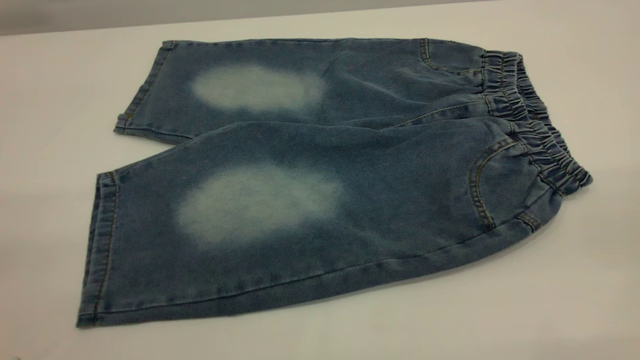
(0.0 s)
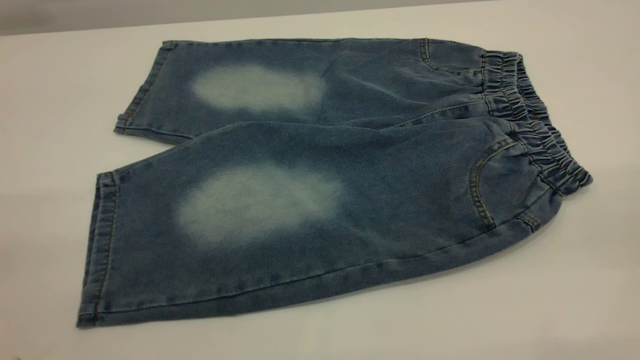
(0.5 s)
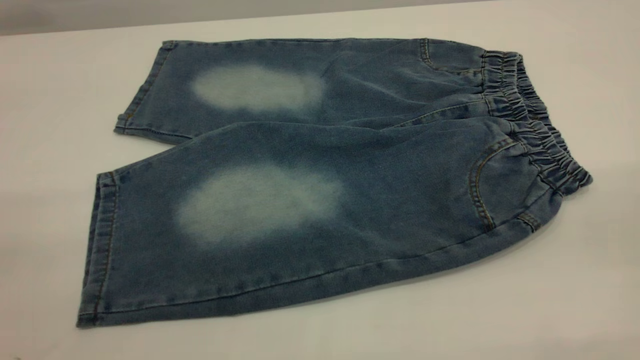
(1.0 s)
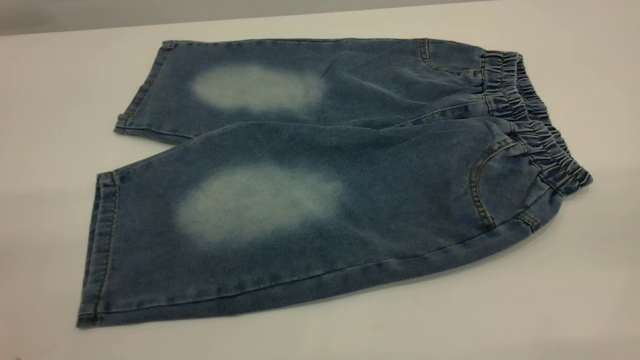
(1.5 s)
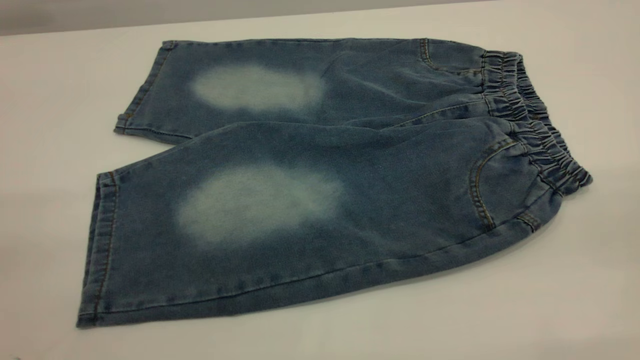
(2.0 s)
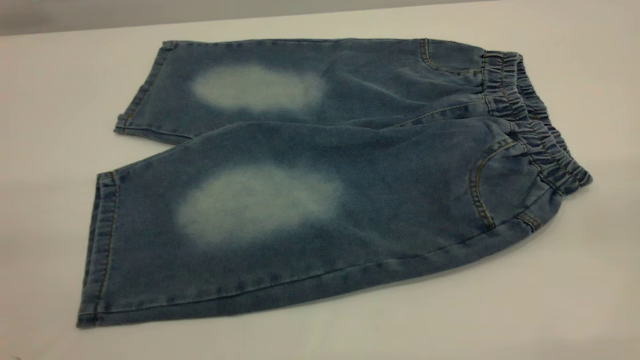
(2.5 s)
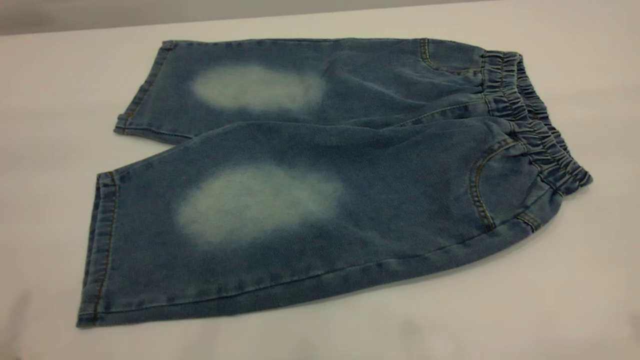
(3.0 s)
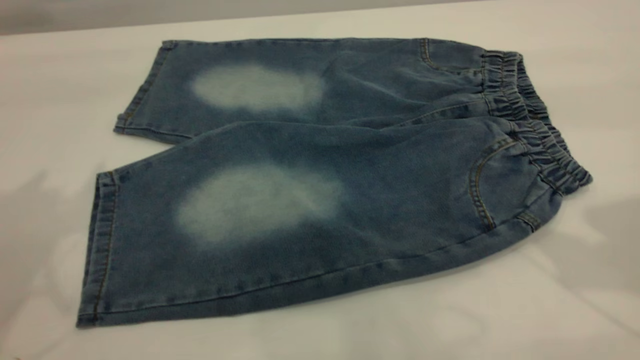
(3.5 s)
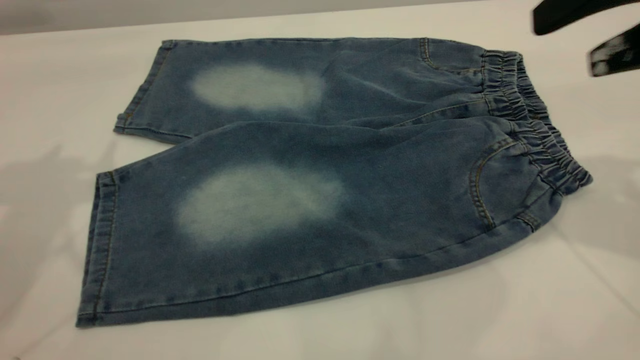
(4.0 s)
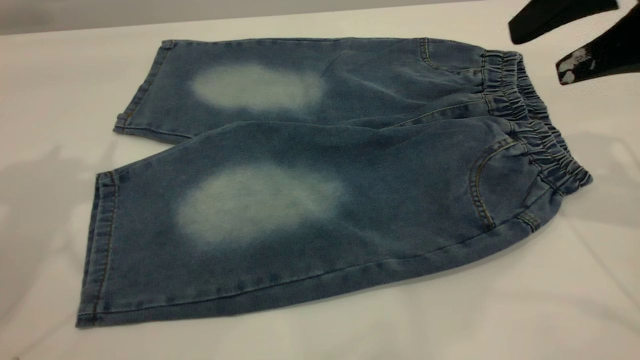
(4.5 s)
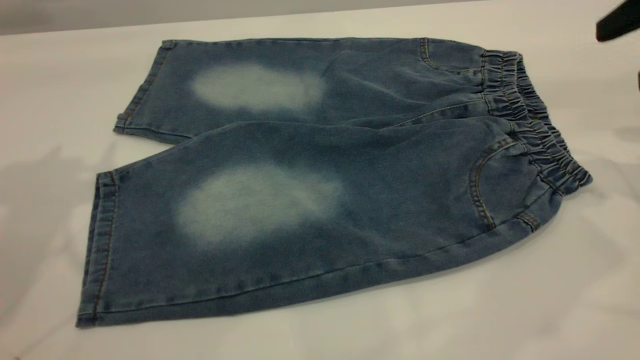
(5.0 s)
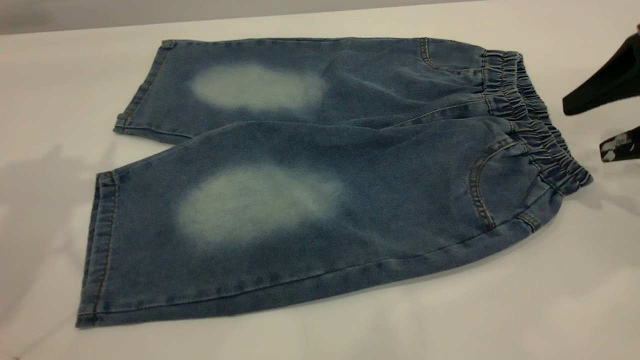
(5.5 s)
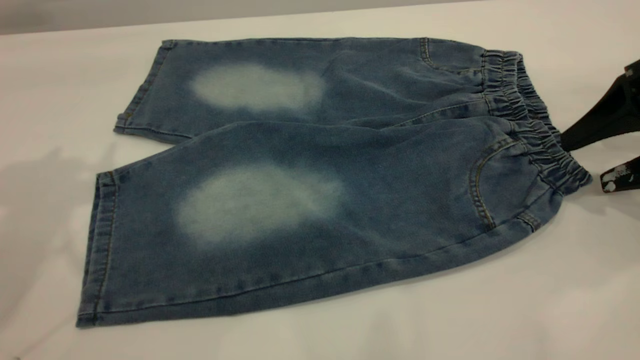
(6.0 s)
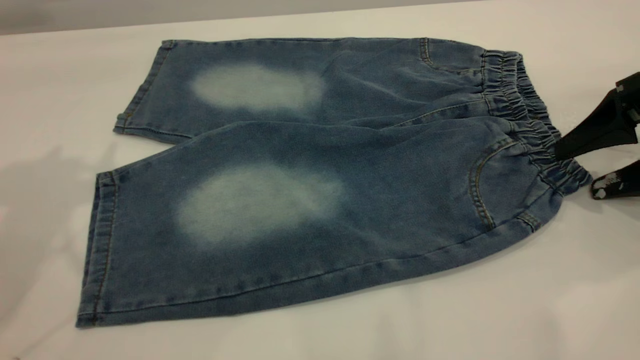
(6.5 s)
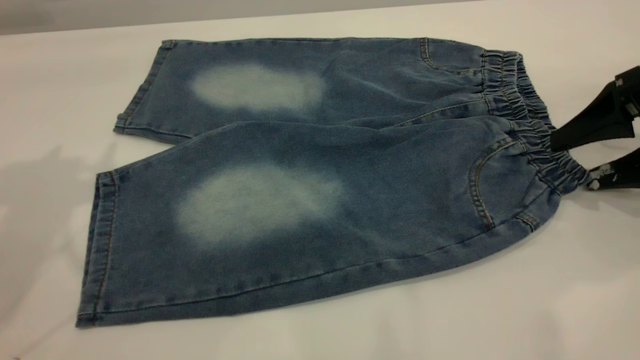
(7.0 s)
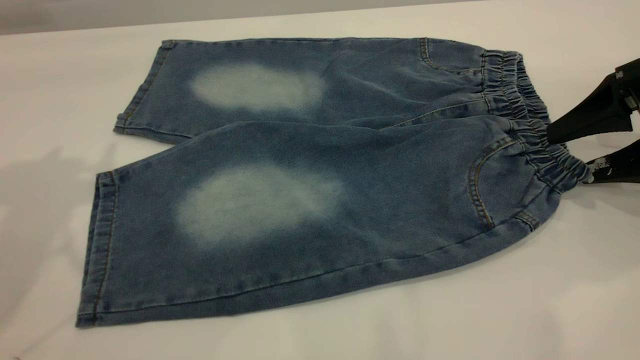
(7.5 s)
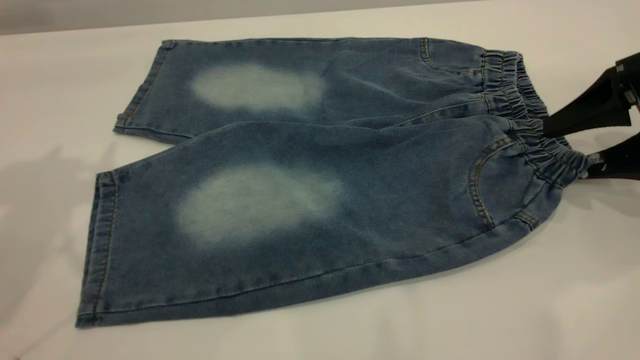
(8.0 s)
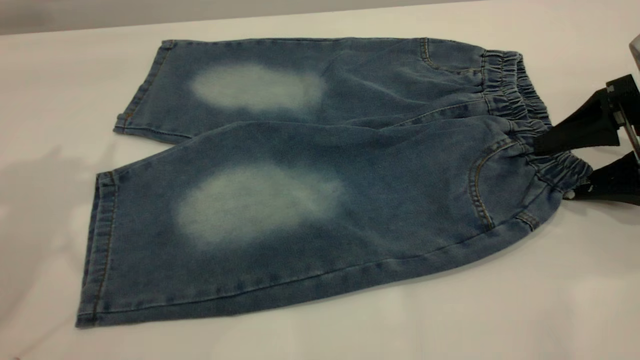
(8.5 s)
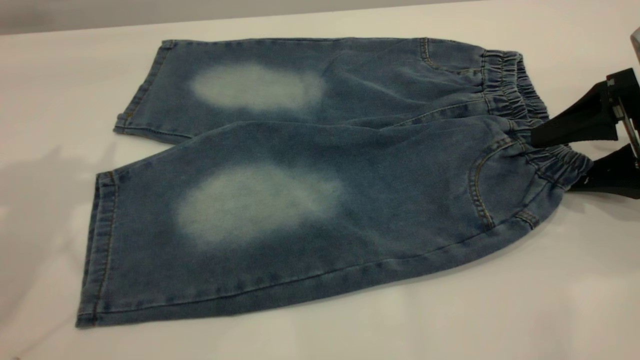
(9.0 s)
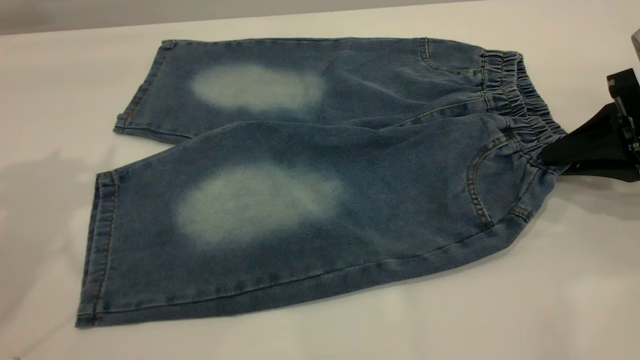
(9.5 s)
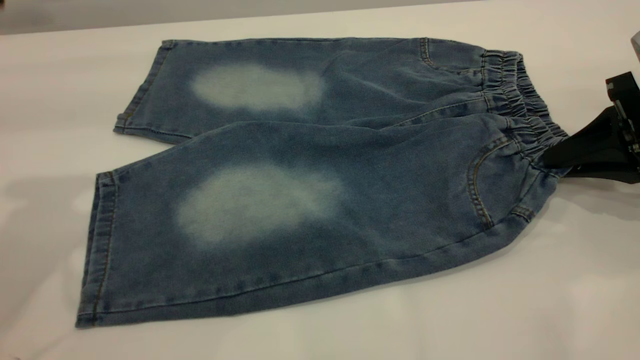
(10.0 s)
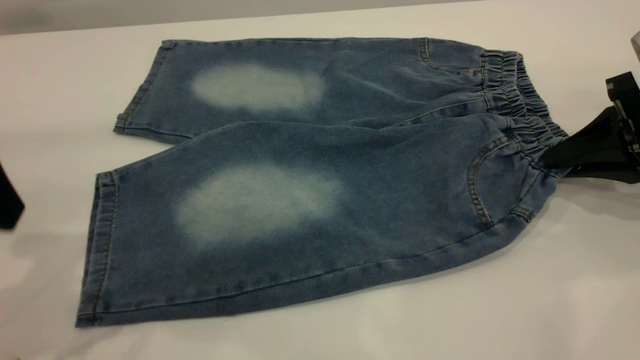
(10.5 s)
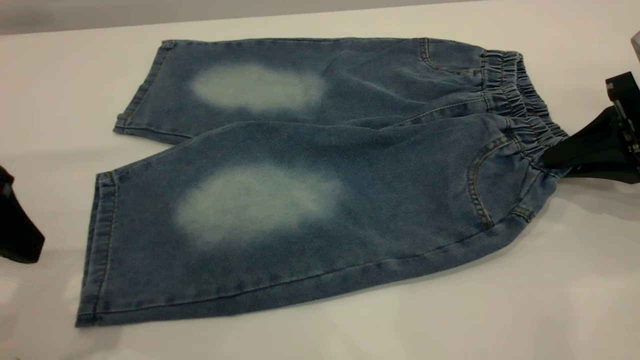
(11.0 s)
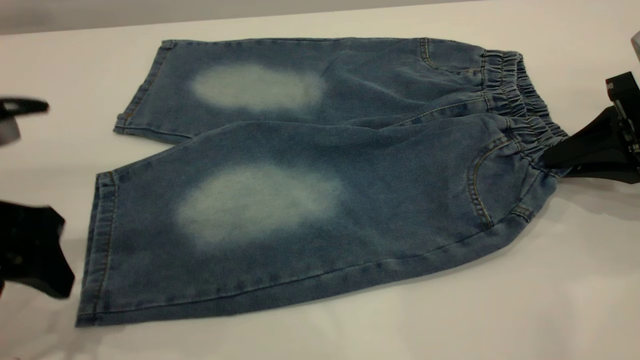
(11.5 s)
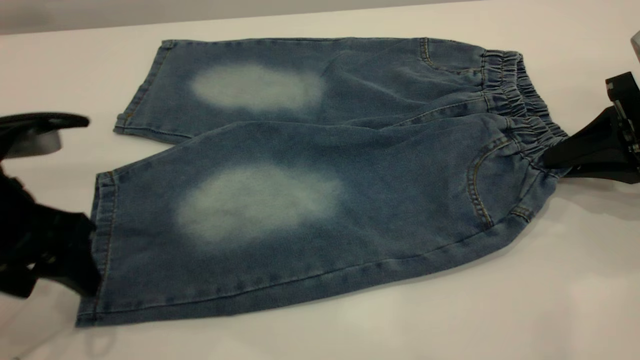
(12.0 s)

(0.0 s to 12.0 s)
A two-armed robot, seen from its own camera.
0.0 s - 2.0 s: Neither gripper changes place.
2.0 s - 4.0 s: The right gripper is displaced forward by about 25 cm.
4.0 s - 6.0 s: The right gripper heads downward and to the right, covering some 15 cm.
6.0 s - 8.0 s: There are only small adjustments of the grippers.
8.0 s - 10.0 s: The right gripper closes up.
10.0 s - 12.0 s: The left gripper shifts some 15 cm downward.

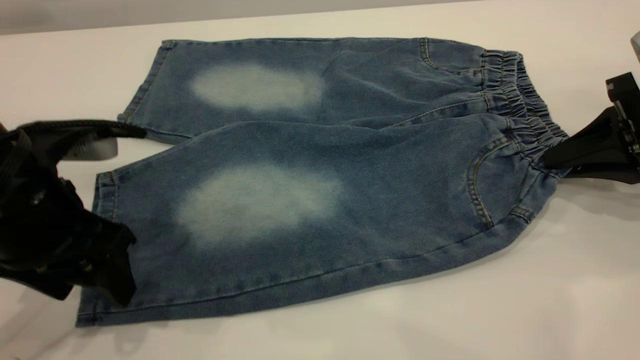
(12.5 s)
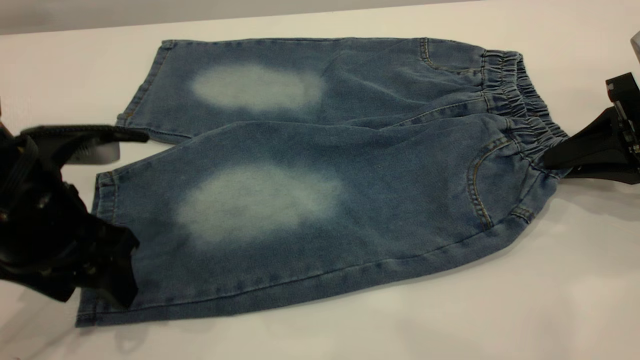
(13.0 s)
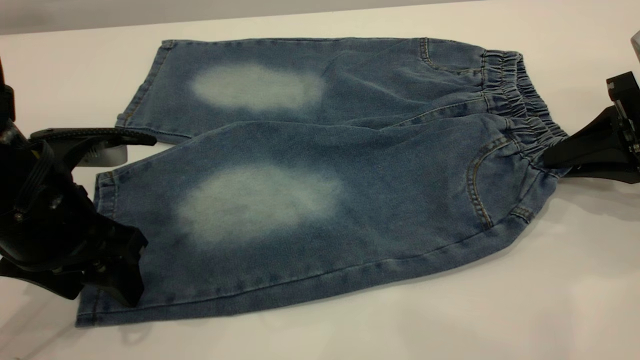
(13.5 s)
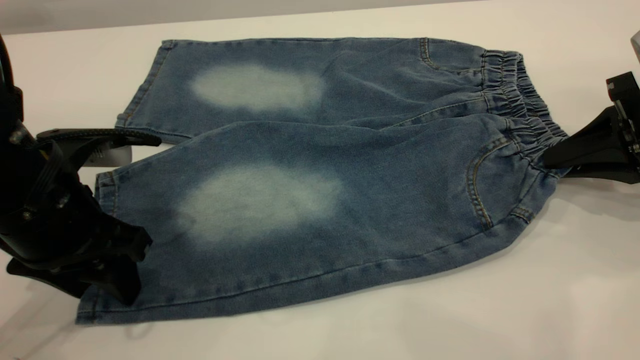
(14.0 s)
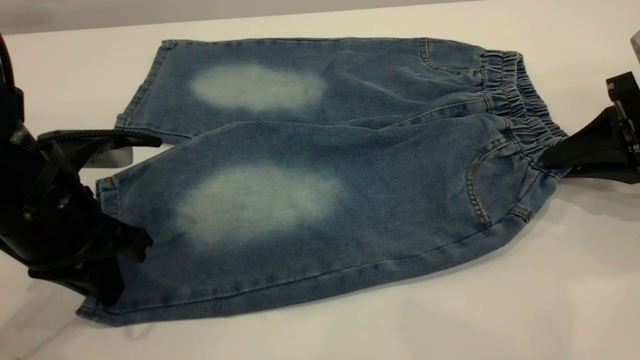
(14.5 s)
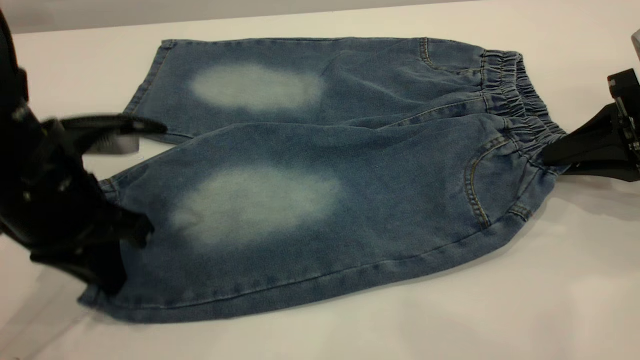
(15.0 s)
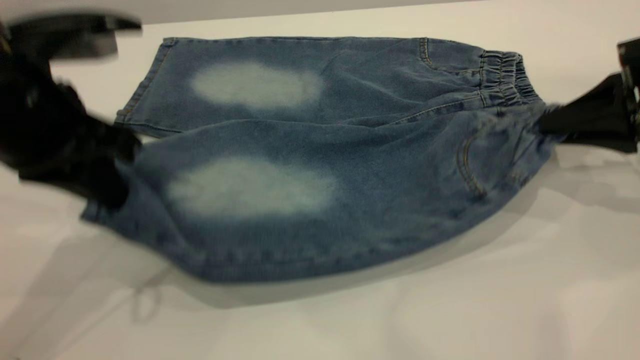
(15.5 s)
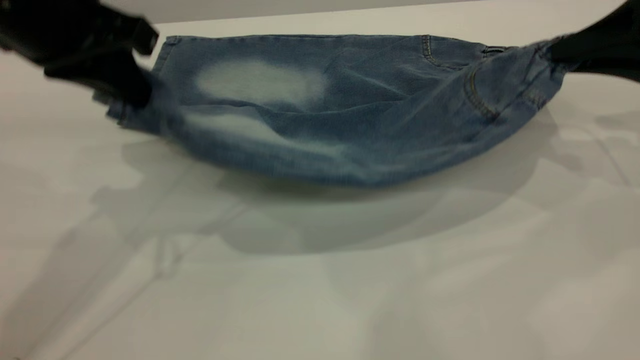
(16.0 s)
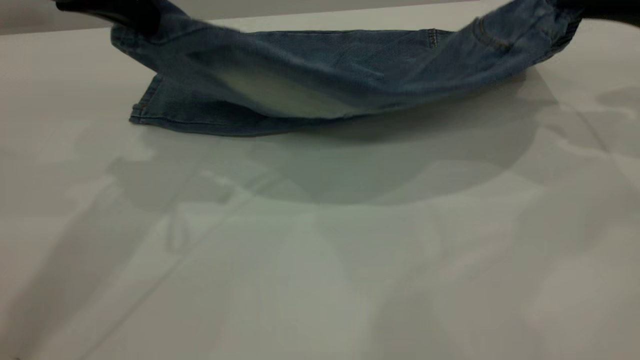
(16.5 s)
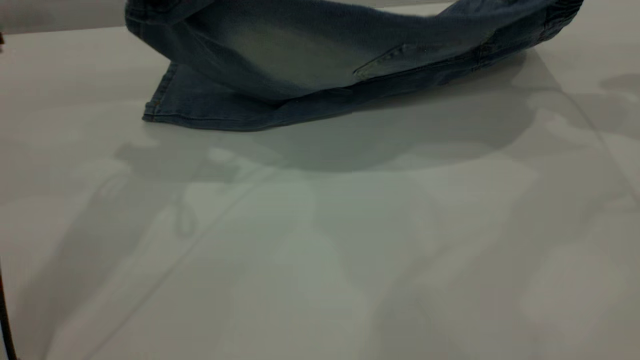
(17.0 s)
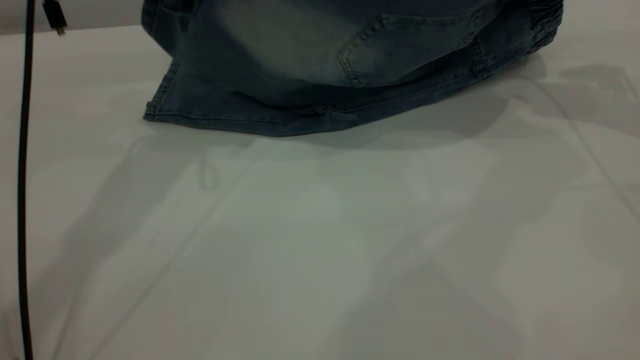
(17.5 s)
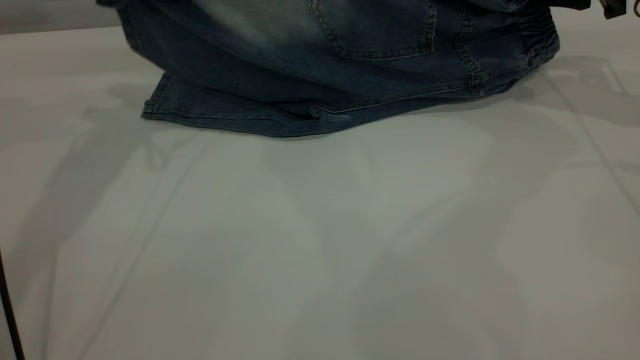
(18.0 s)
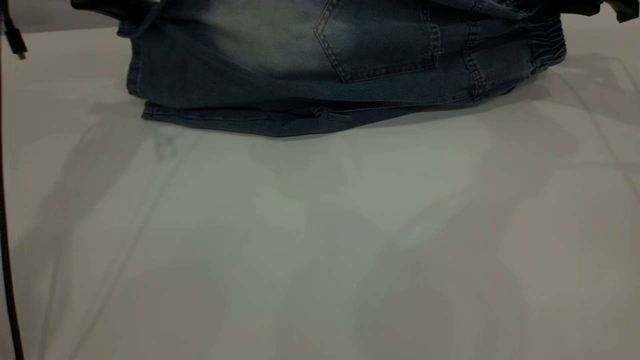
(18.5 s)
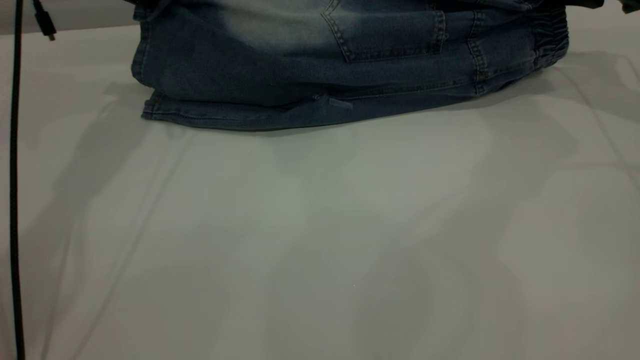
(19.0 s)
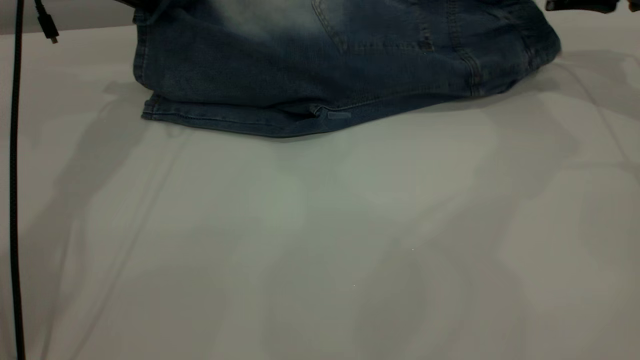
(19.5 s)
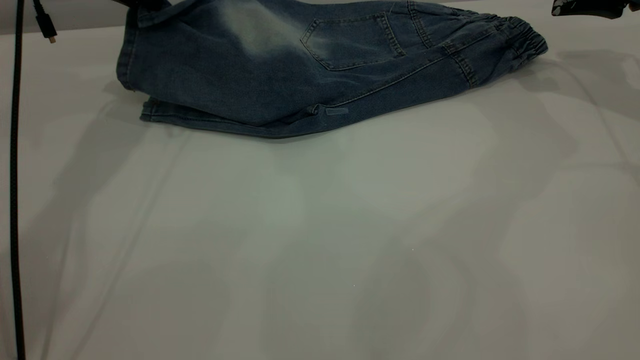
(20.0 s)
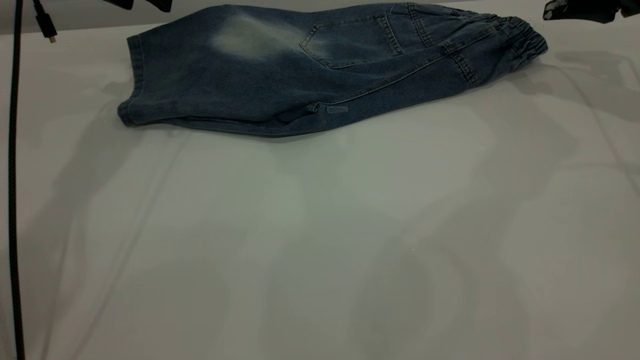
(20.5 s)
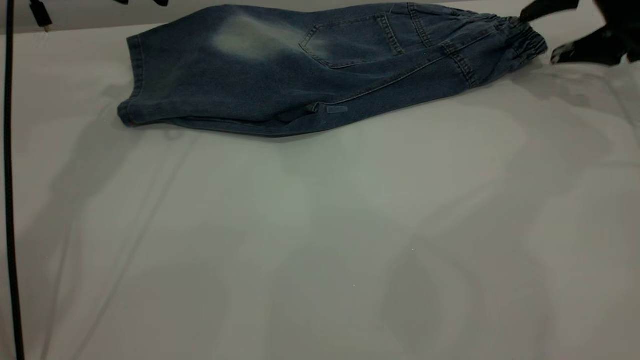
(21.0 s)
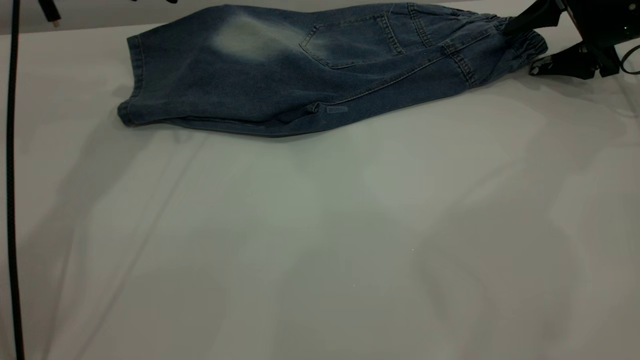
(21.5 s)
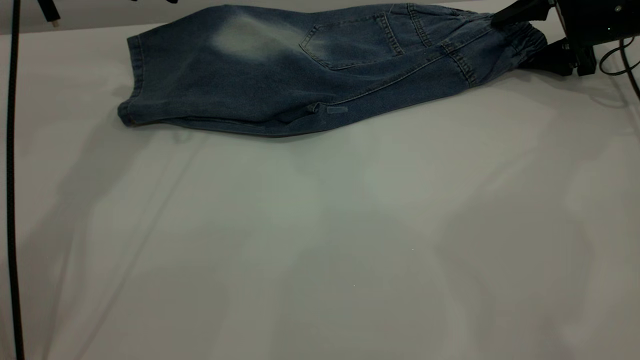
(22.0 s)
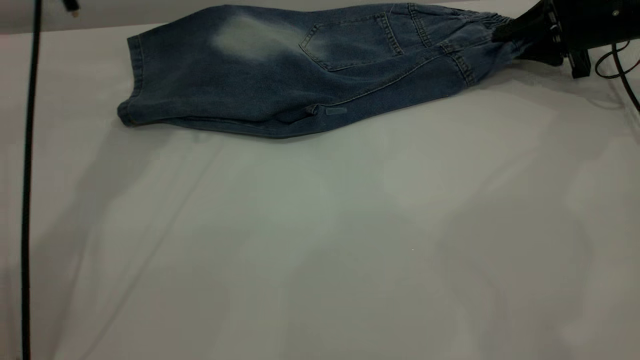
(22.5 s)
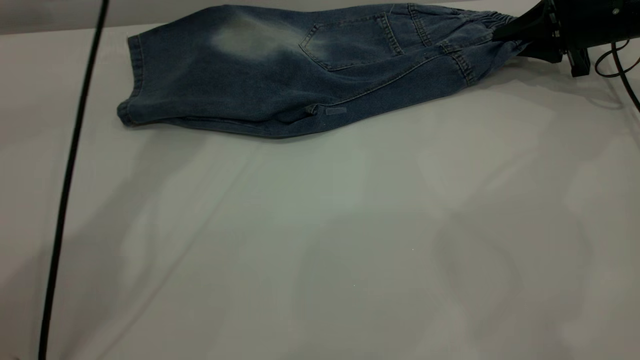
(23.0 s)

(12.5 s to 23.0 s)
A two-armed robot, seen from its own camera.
Step, 12.5 s - 20.0 s: Fold the bottom of the pants upward.
12.5 s - 14.5 s: The left gripper closes its fingers.
14.5 s - 16.5 s: The grippers both shift upward and forward by approximately 15 cm.
16.5 s - 19.0 s: The right gripper goes some 10 cm forward, while the left gripper goes roughly 15 cm forward.
19.0 s - 21.0 s: The left gripper opens up. The right gripper opens up.
21.0 s - 23.0 s: The right gripper moves some 5 cm, and closes its fingers. The left gripper heads to the right, covering about 10 cm.
